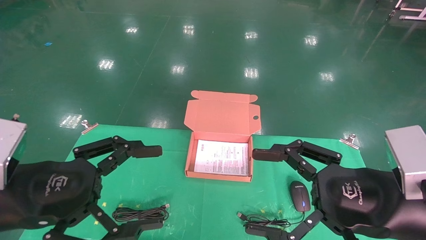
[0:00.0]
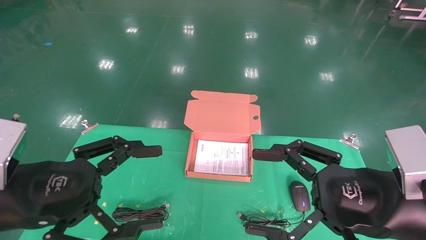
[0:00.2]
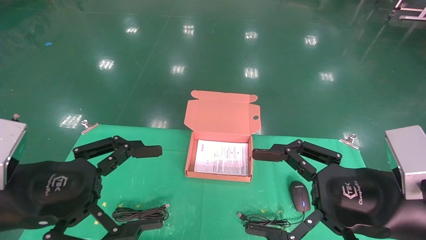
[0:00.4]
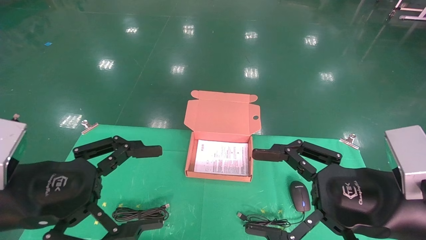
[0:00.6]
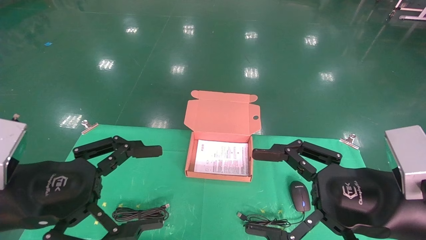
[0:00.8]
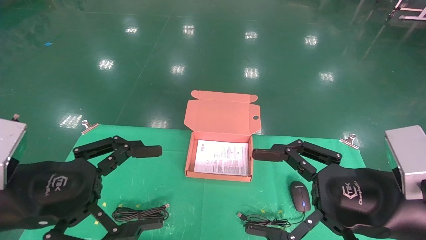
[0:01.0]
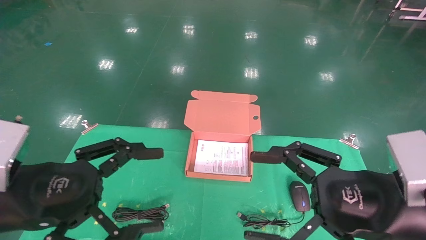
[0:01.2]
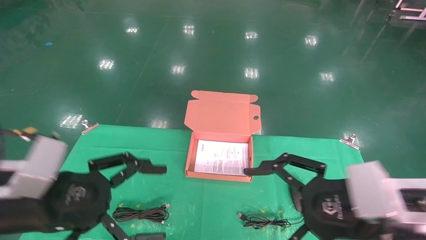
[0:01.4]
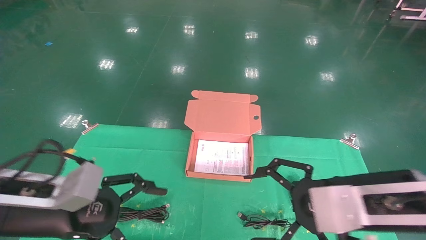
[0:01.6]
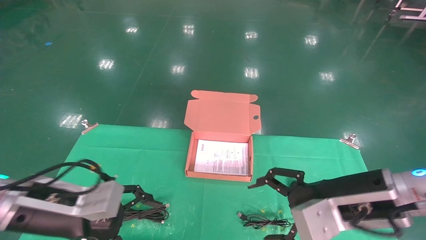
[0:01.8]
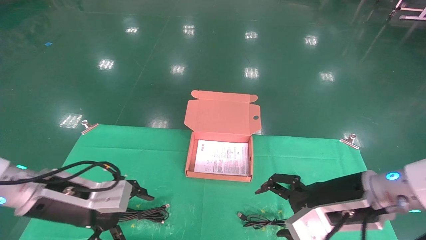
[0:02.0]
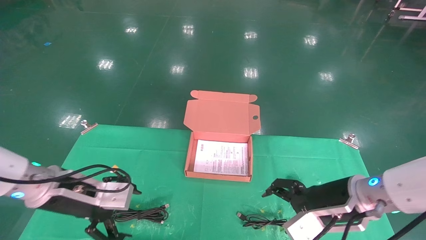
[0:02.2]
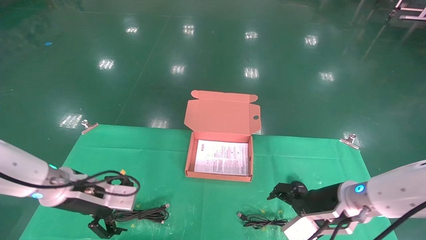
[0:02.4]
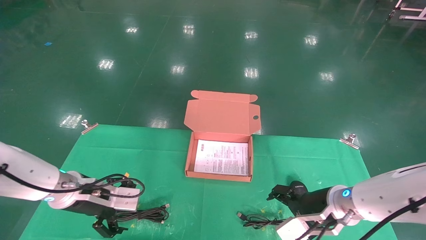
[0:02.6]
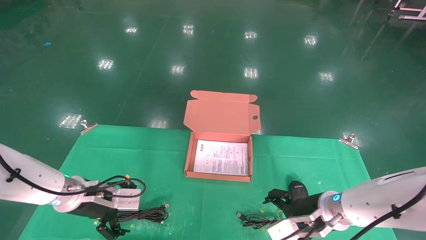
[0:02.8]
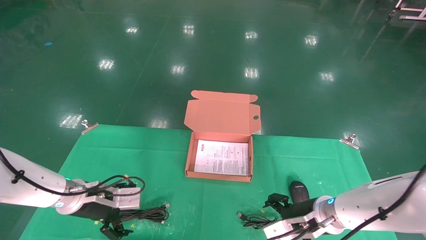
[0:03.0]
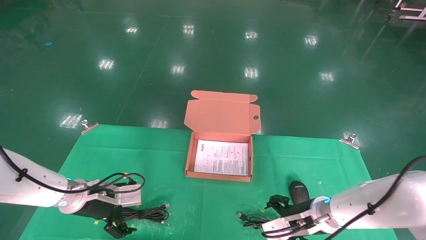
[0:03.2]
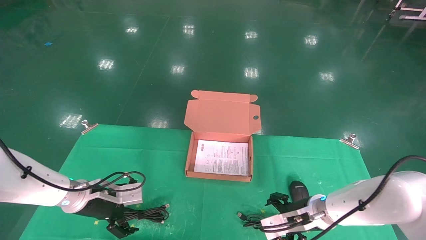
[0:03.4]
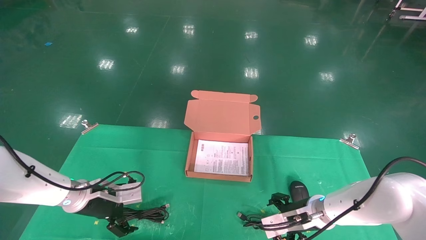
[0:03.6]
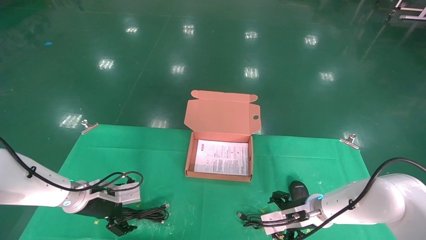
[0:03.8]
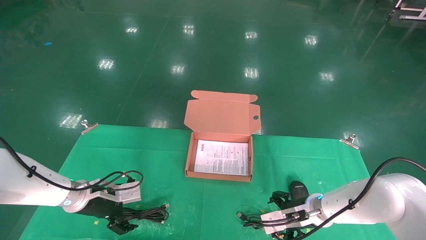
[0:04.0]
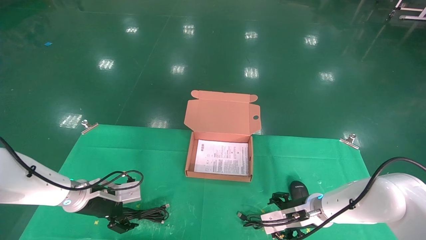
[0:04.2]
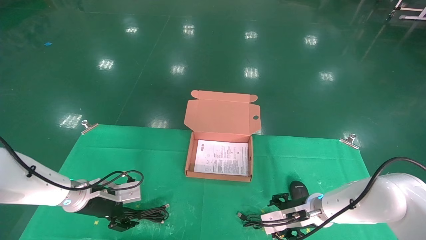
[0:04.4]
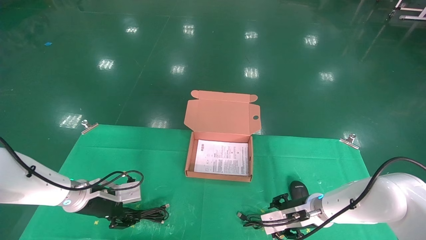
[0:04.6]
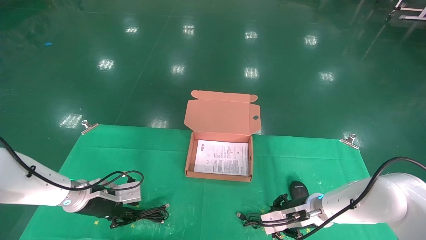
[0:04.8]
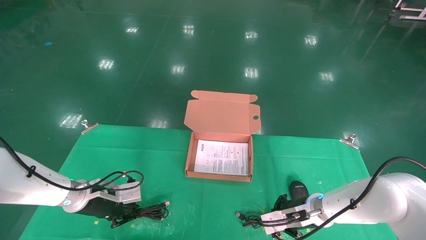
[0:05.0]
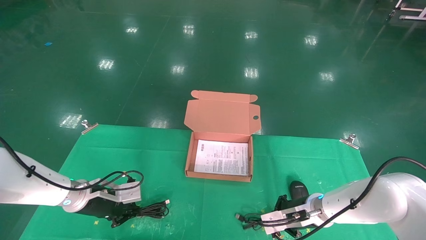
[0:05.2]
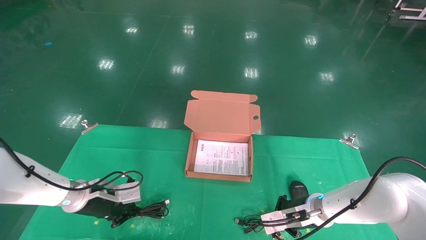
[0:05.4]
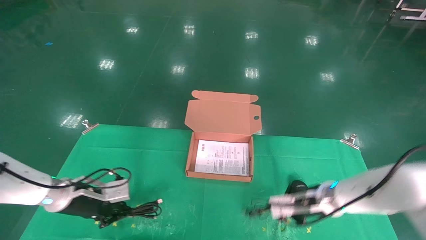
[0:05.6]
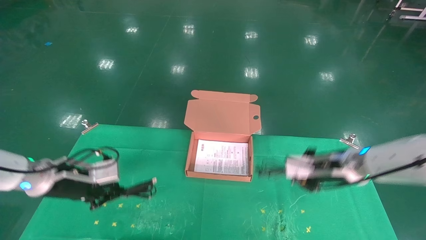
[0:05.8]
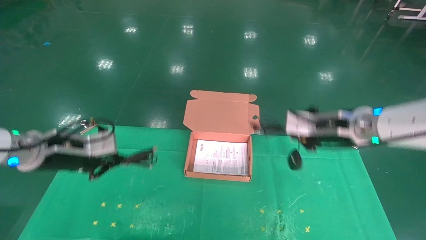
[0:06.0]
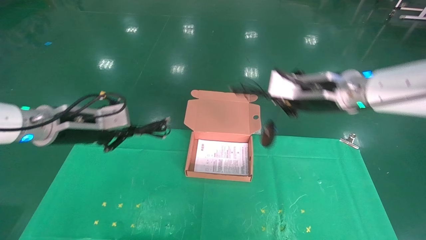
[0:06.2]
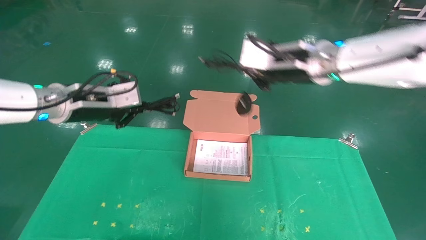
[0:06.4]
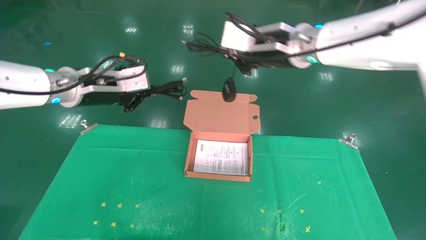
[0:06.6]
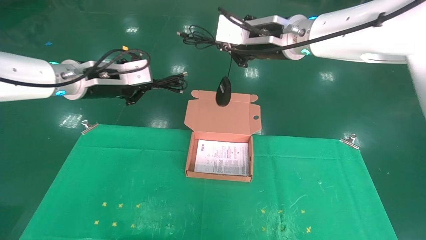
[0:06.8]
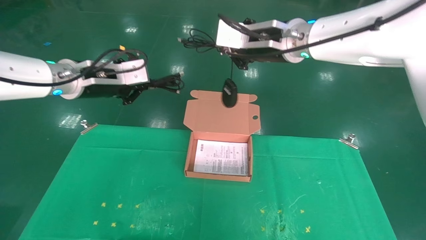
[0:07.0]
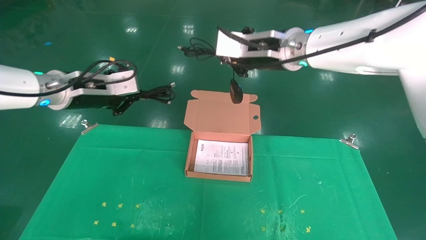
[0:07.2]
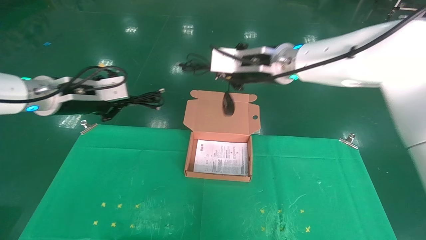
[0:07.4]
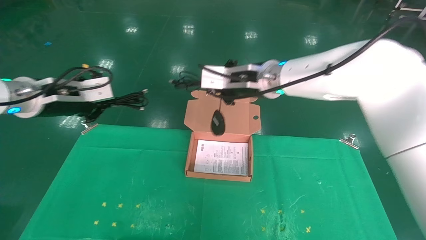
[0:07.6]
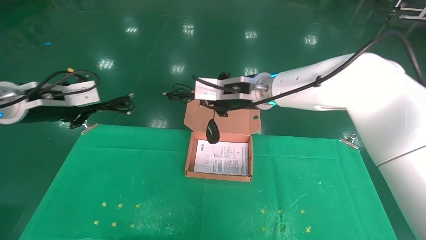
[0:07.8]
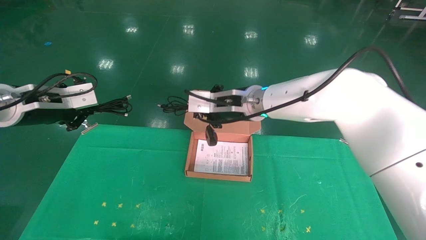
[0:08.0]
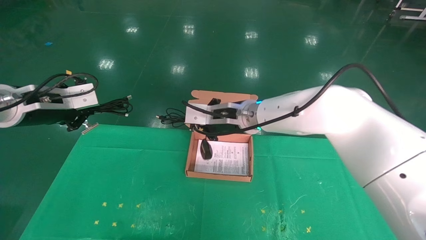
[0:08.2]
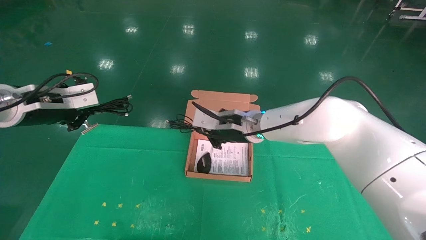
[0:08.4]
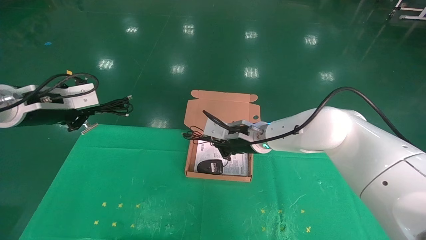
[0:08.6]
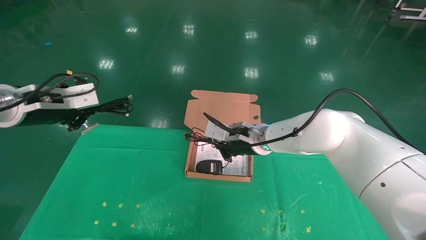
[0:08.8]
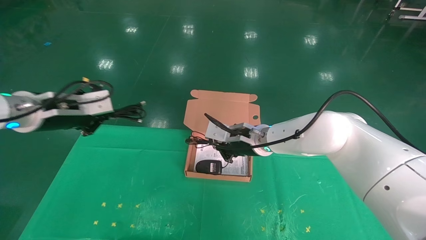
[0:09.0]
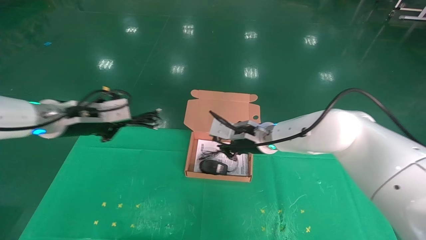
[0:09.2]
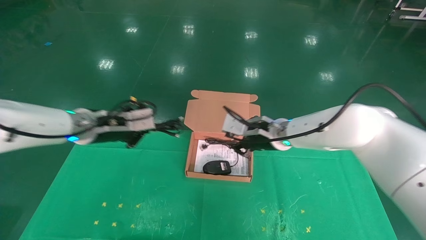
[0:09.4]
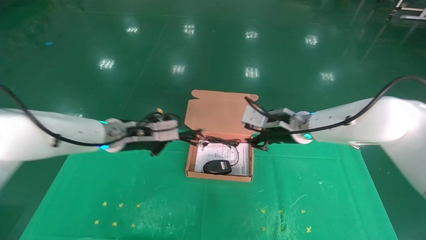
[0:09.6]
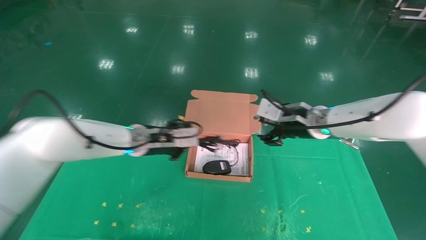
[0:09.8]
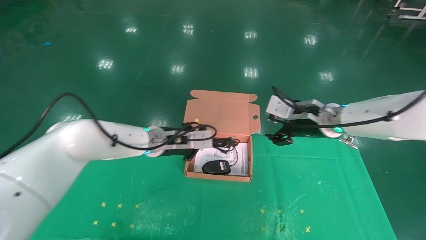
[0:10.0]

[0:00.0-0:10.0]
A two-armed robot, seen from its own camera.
Task of the whole recording: grasp data cable left put into box grasp mouse right put into box.
Step, 0:00.8 to 0:05.2: Grab and pick up both the mouse and power cord from the accessory packaging area at the same time.
0:01.4 to 0:02.8: The two grippers go some 20 cm forward and downward.
0:02.8 to 0:04.2: The left gripper moves some 5 cm. The right gripper shifts roughly 5 cm forward.
0:04.2 to 0:05.8: The grippers both shift upward by some 10 cm. The left gripper closes, while the right gripper closes.
0:05.8 to 0:07.2: The left gripper heads upward, covering some 15 cm; the right gripper goes some 25 cm upward and to the left.
0:07.2 to 0:08.6: The right gripper is displaced downward by about 20 cm; the left gripper travels to the left by some 5 cm.
0:08.6 to 0:10.0: The right gripper travels to the right by some 15 cm, and opens. The left gripper is displaced to the right, downward and forward by some 25 cm.

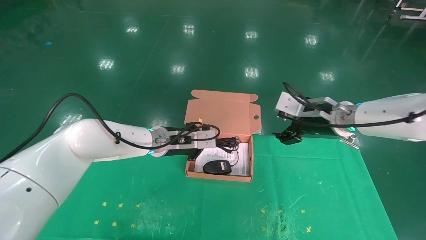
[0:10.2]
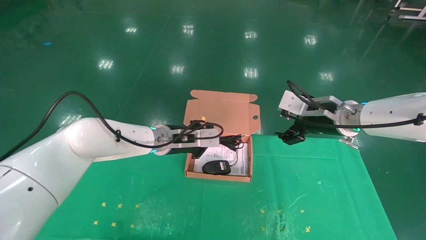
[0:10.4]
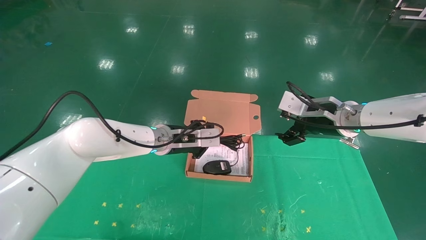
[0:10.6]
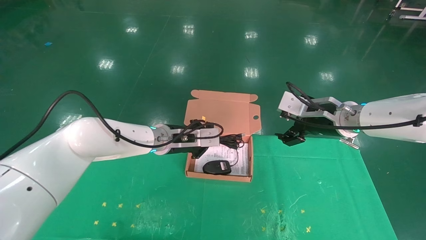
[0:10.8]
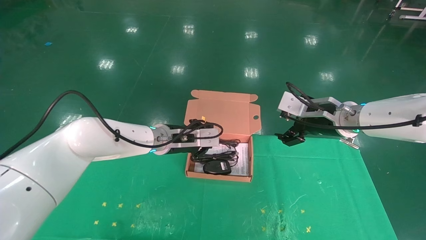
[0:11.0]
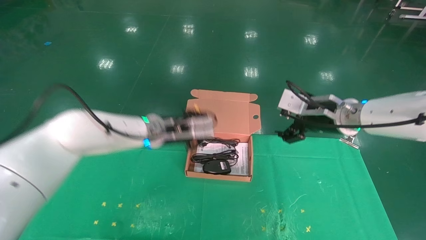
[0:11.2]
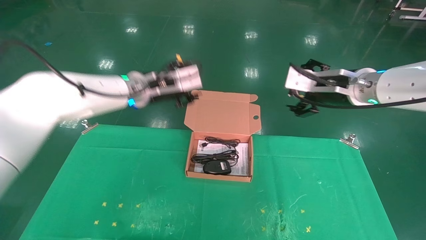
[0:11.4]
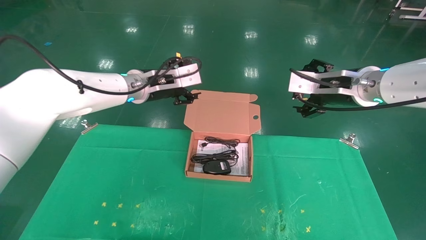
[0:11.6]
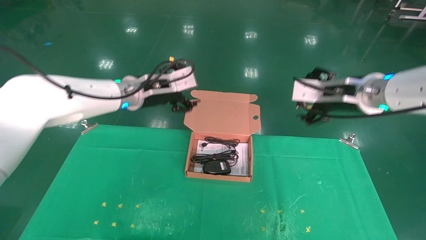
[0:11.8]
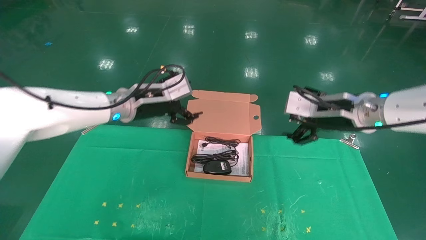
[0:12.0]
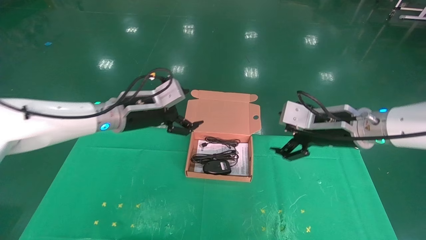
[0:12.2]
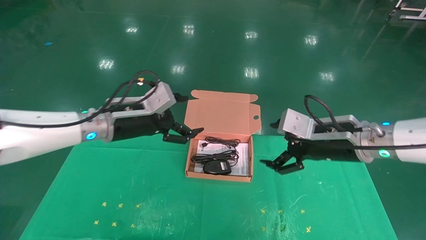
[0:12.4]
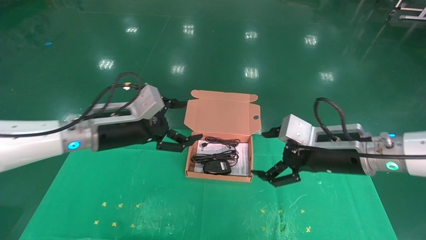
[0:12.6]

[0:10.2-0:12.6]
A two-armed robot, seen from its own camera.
Task of the whole recording: grasp data cable left put into box grasp mouse right put into box.
0:10.2 to 0:11.4: The left gripper is displaced upward by about 10 cm, and opens. The right gripper moves upward, some 5 cm.
0:11.4 to 0:12.6: The left gripper is displaced backward and to the left by approximately 10 cm, and opens. The right gripper is displaced downward and backward by roughly 10 cm.
